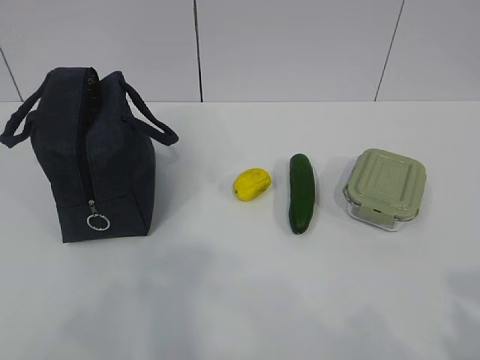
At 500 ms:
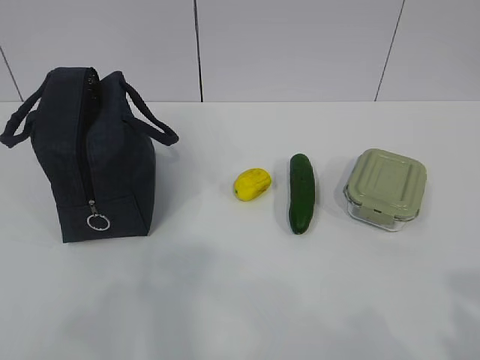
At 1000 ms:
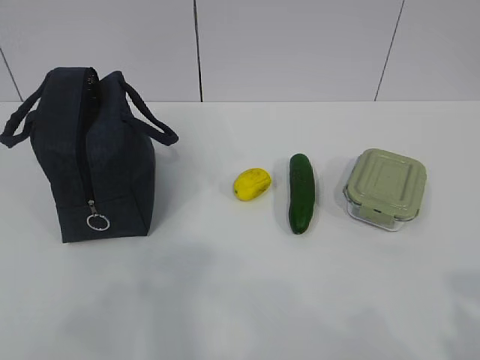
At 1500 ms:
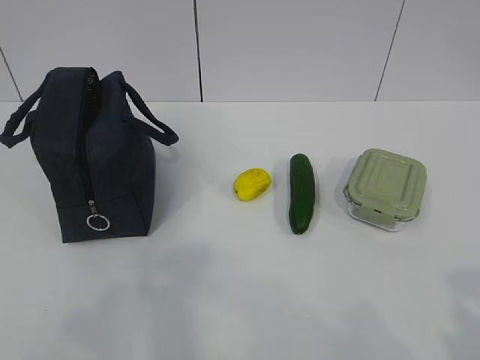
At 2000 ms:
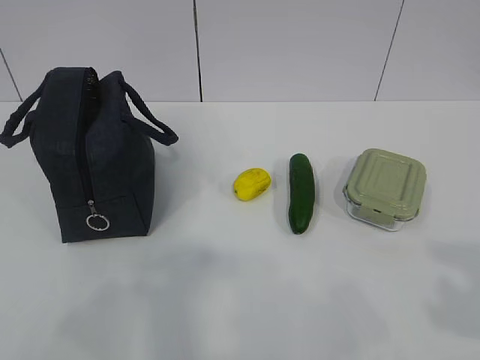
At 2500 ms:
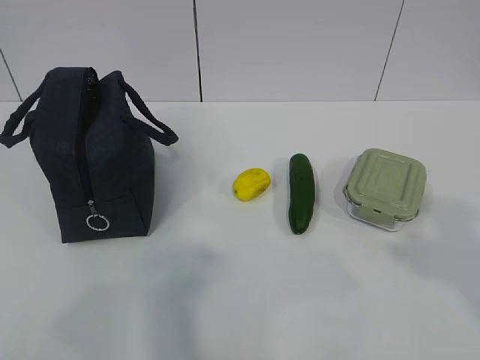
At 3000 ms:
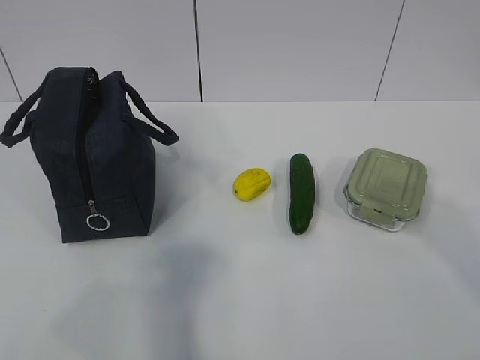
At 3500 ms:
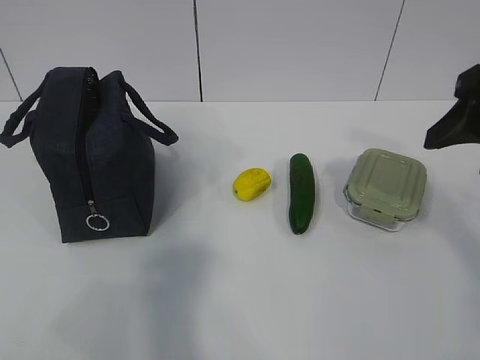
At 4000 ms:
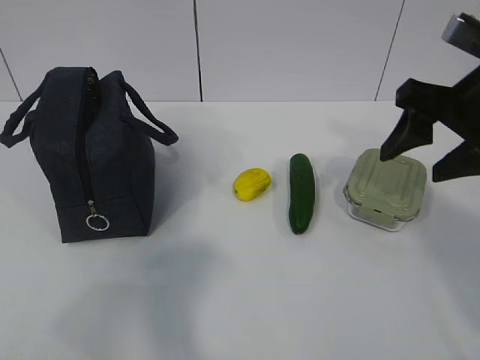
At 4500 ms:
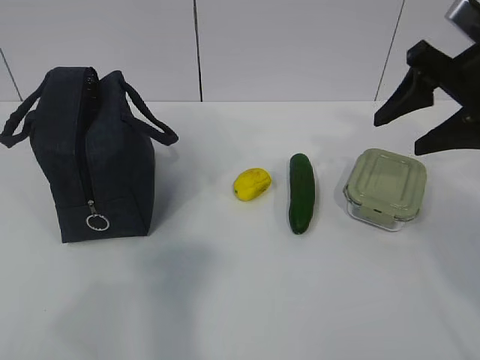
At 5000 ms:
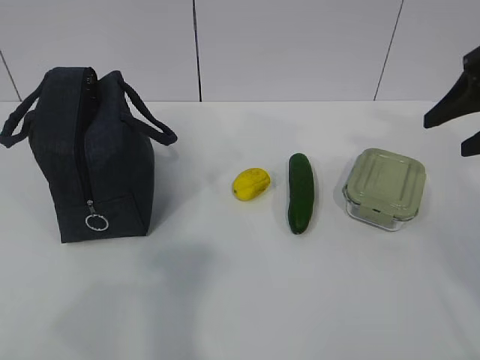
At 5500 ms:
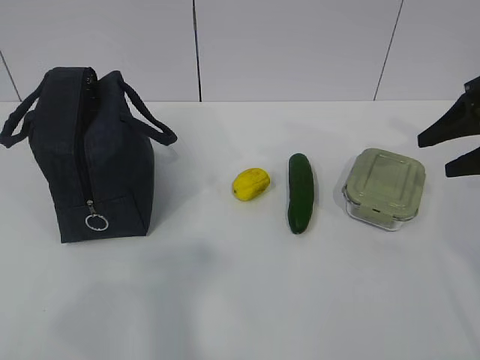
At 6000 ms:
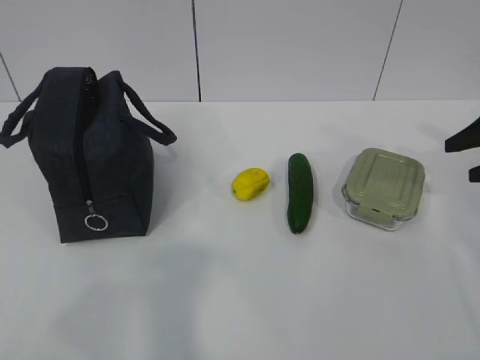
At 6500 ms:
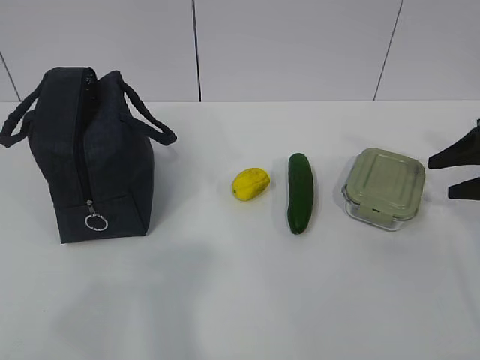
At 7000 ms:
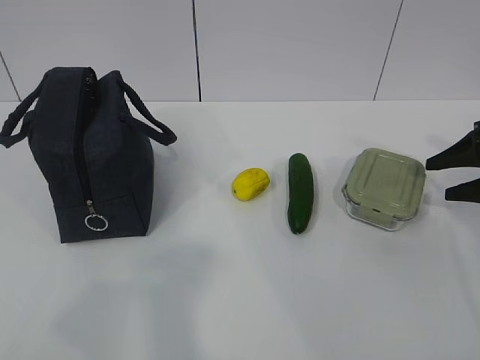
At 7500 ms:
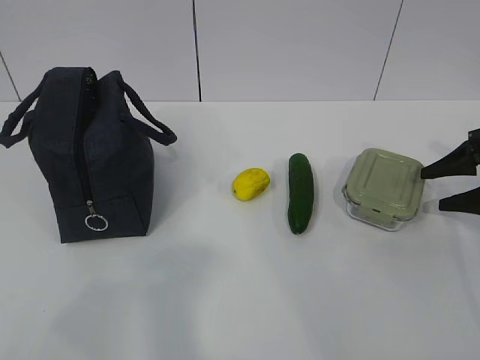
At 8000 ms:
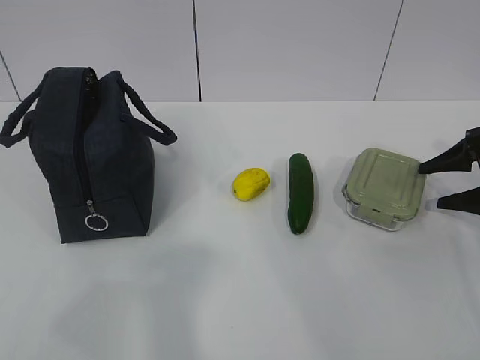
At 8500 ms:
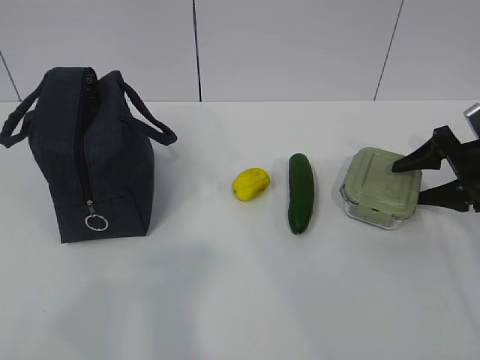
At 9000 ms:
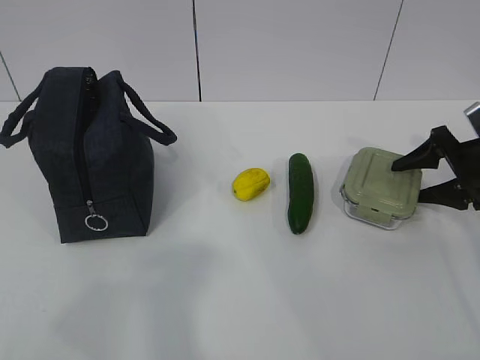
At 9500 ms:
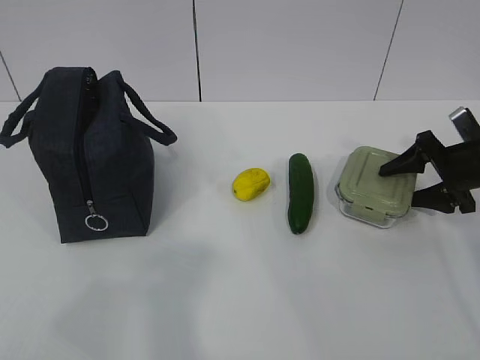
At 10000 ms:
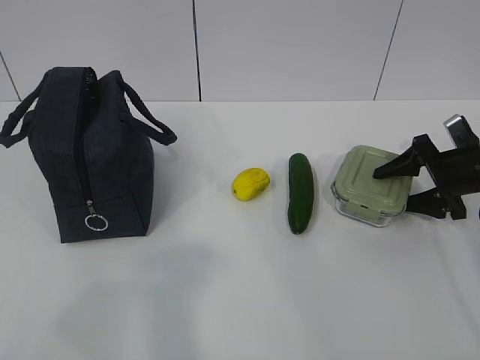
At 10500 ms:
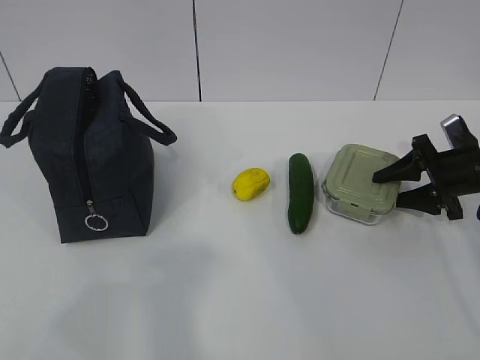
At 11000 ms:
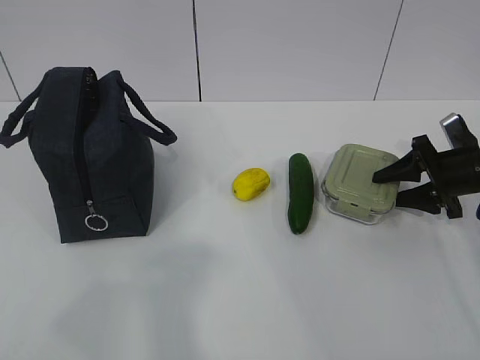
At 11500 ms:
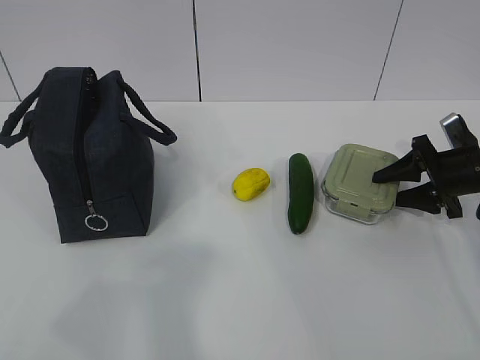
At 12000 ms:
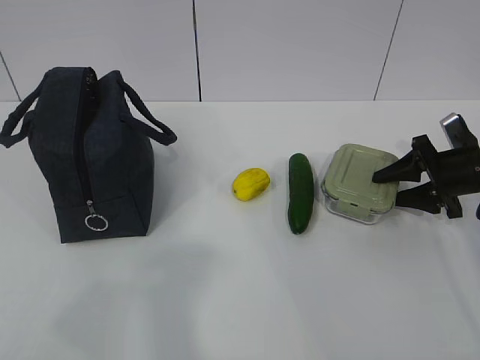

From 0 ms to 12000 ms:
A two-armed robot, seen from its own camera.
Step, from 0 ms to 12000 ms: Grasp the box with the right gripper.
From 2000 ms to 4000 ms: The right gripper travels forward by about 25 cm.
From 4000 ms to 6000 ms: The right gripper moves to the right, downward and forward, about 20 cm.
From 6000 ms to 8000 ms: The right gripper moves downward, some 10 cm.
From 8000 ms to 10000 ms: The right gripper heads to the left, covering some 5 cm.
From 10000 ms to 12000 ms: Neither gripper changes place.

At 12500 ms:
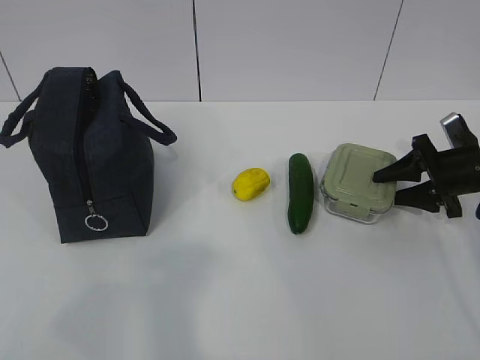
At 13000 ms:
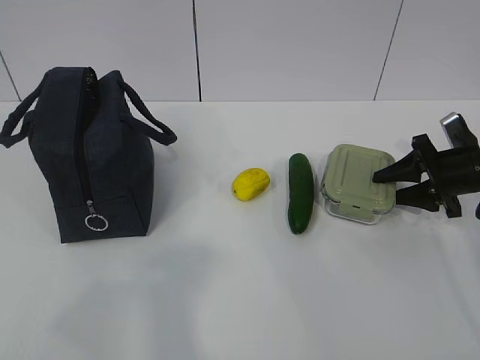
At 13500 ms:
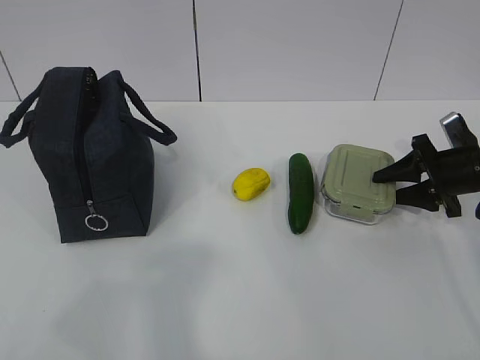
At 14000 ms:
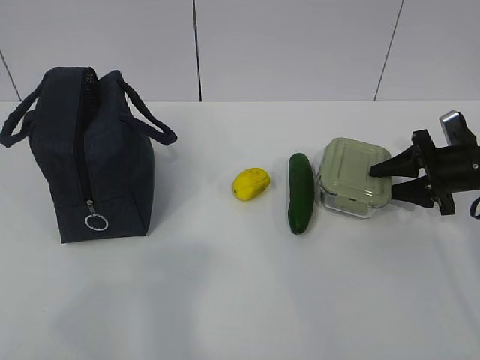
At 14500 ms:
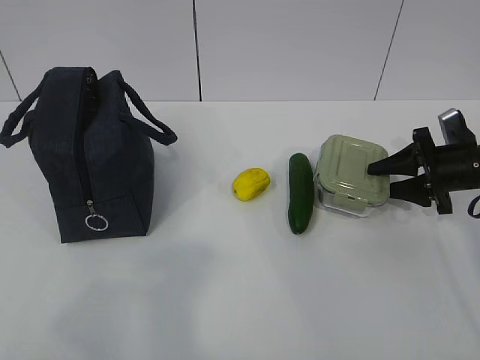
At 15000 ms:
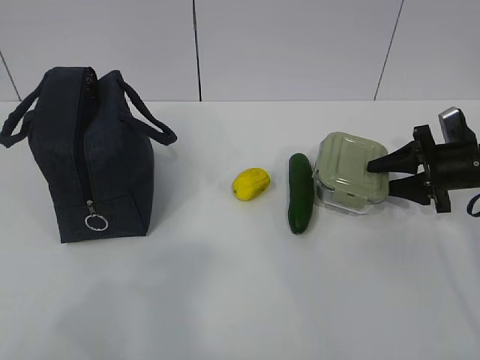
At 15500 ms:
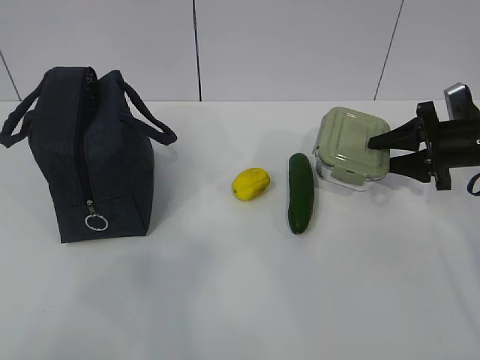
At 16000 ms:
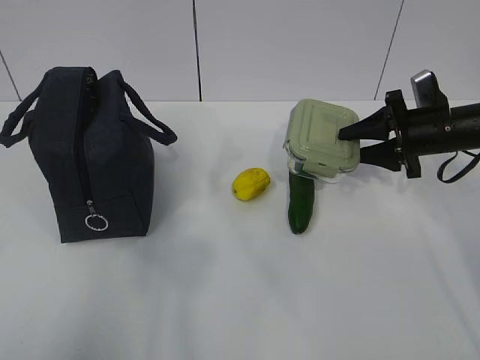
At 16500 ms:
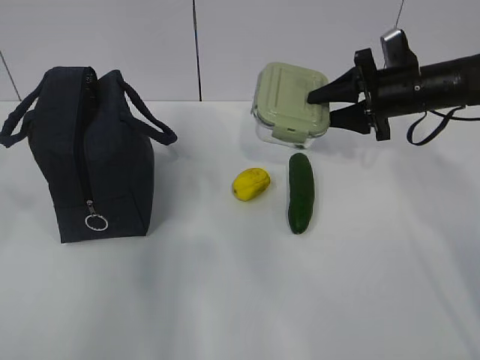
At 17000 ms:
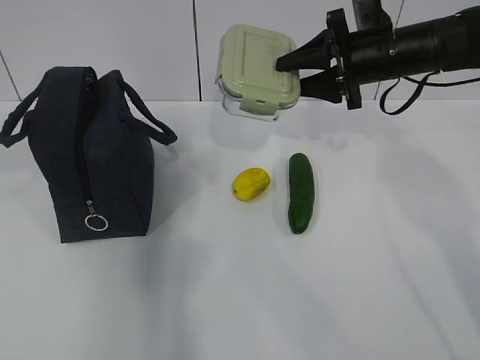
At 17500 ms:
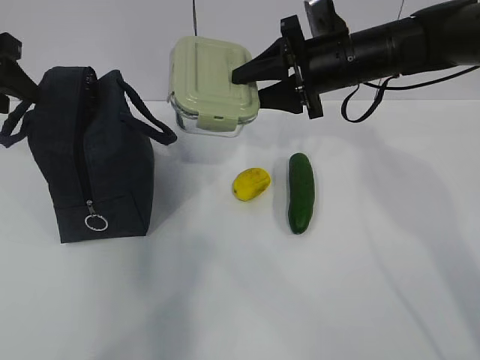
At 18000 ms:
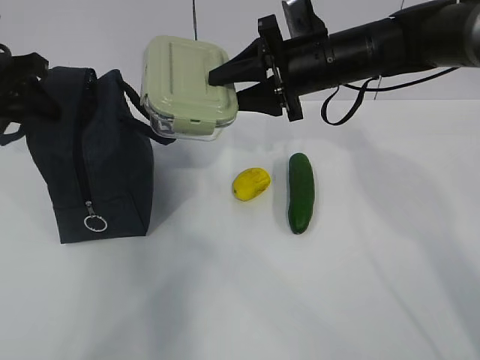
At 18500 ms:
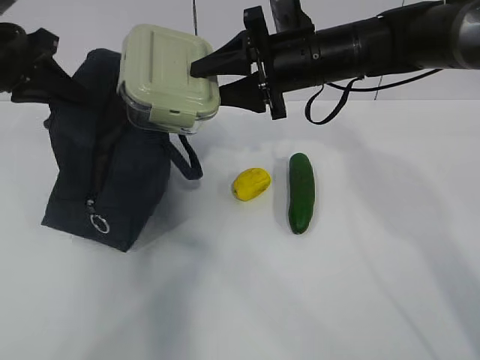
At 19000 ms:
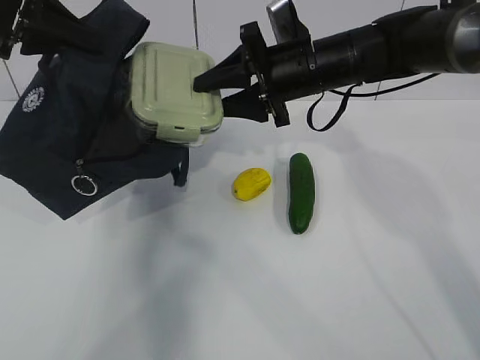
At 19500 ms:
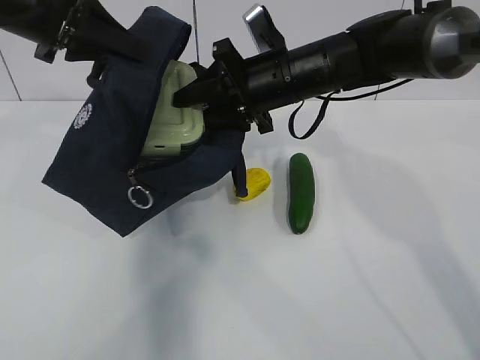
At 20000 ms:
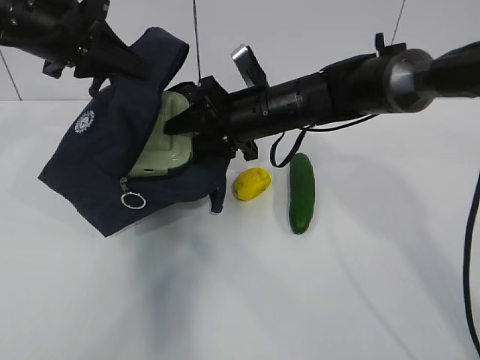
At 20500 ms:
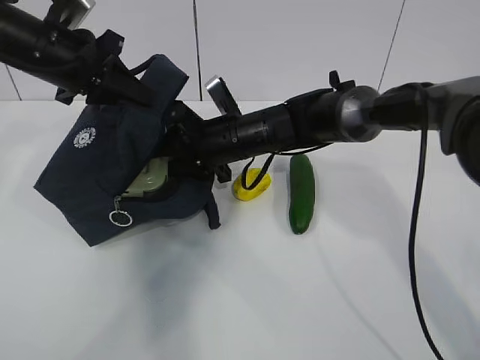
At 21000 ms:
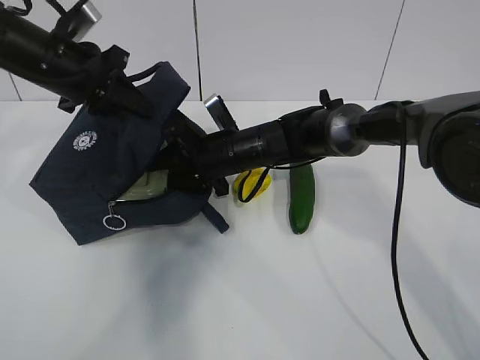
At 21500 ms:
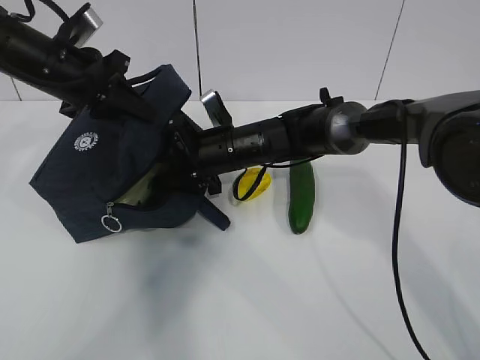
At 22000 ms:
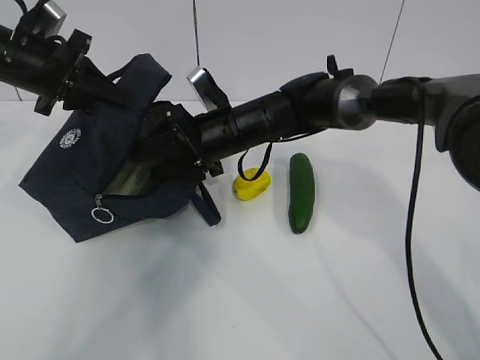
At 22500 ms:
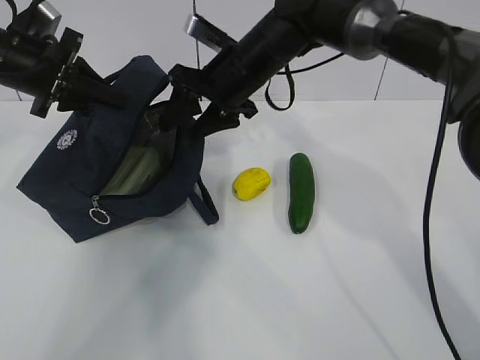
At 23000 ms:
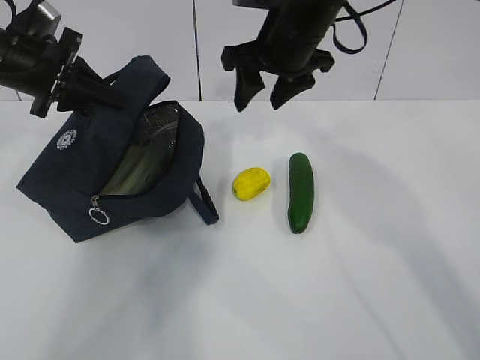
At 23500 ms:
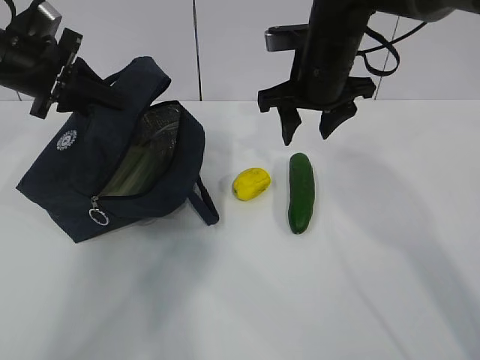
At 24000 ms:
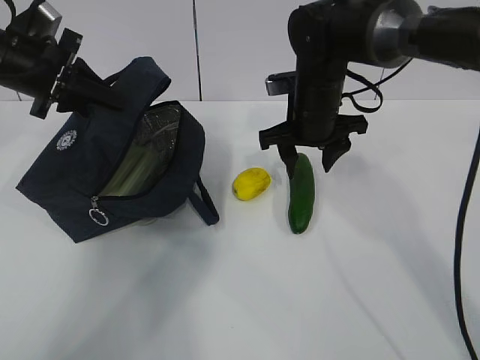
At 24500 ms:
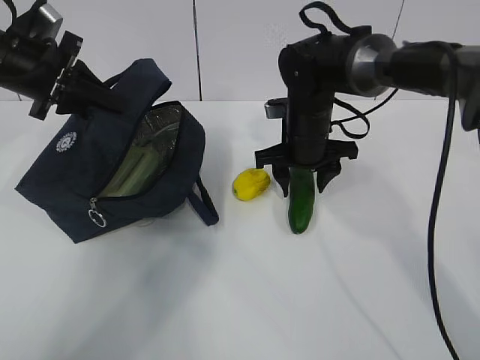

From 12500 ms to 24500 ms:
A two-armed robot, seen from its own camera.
Step, from 12500 ms to 22500 ms: Place the box into the package with the right gripper.
From 12500 ms to 14500 ms: The grippers stay close to where they were, moving slightly.
From 14500 ms to 16500 ms: The left gripper is displaced forward by roughly 15 cm. The right gripper shifts some 10 cm upward and to the left.
From 16500 ms to 18500 ms: The left gripper is displaced forward by approximately 25 cm, and closes, while the right gripper goes some 15 cm to the left.
From 18500 ms to 20500 ms: The left gripper goes about 5 cm to the right. Meanwhile the right gripper is displaced downward and to the left by roughly 15 cm.
From 20500 ms to 22500 ms: The right gripper heads upward, covering approximately 10 cm.
From 22500 ms to 24500 ms: The right gripper moves downward and to the right, about 10 cm.

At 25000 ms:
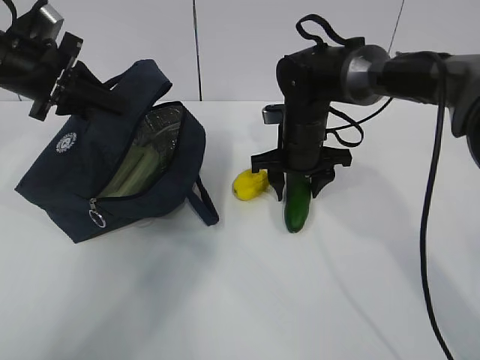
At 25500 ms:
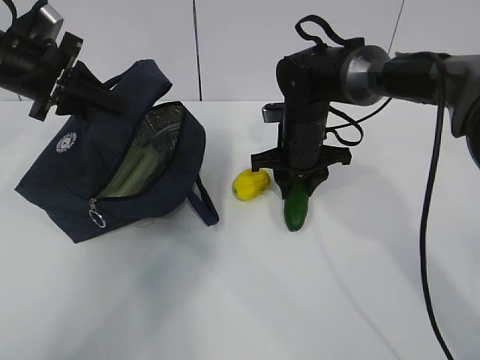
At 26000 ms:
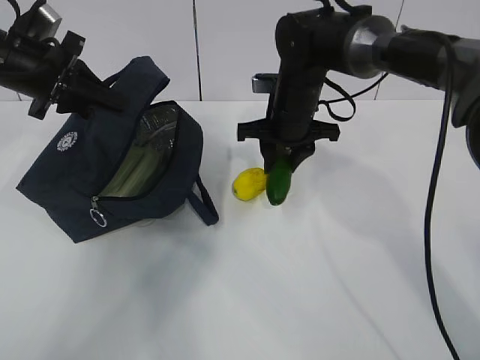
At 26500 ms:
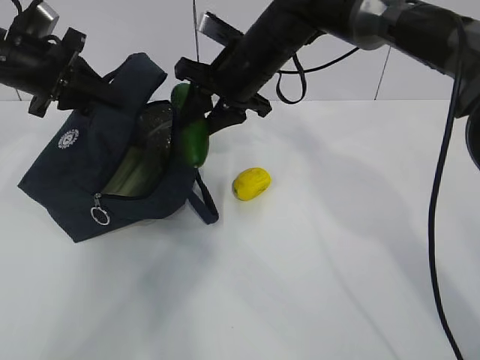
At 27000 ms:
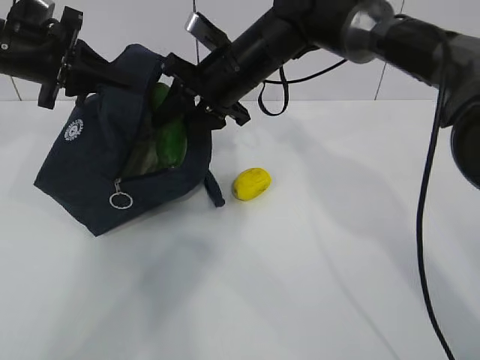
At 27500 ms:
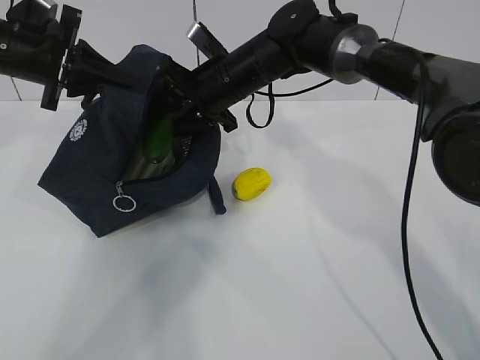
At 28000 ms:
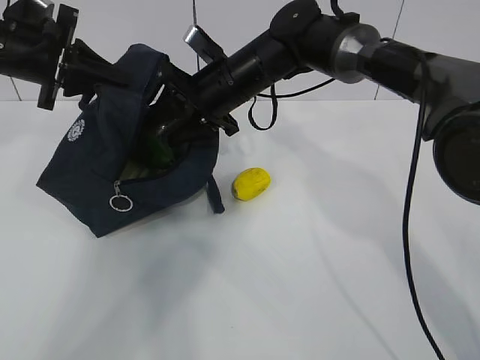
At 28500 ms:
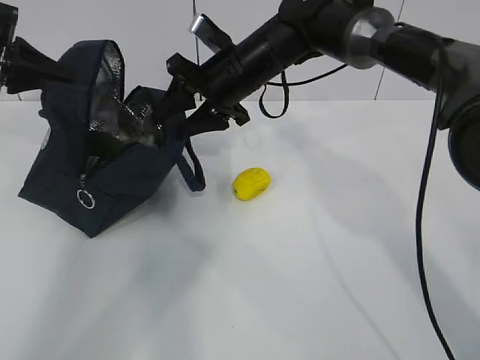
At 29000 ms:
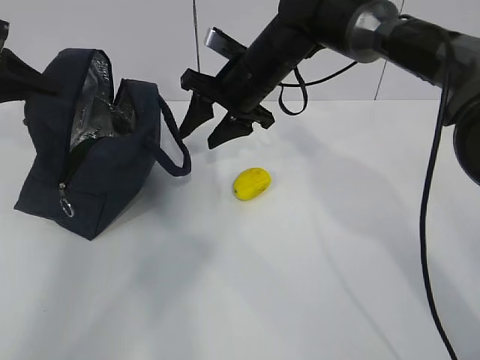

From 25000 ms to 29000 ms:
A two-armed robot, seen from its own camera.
Step, from 26000 ms to 28500 ms: Place the cucumber into the package with the right gripper.
From 25000 ms to 27000 ms: The right gripper moves upward and to the left, approximately 15 cm.
From 27000 ms to 29000 ms: The left gripper heads to the left, covering approximately 10 cm.
